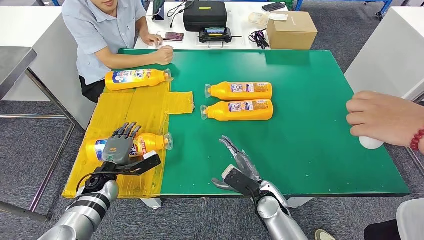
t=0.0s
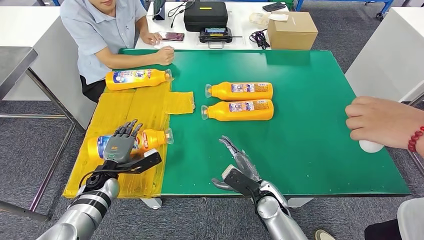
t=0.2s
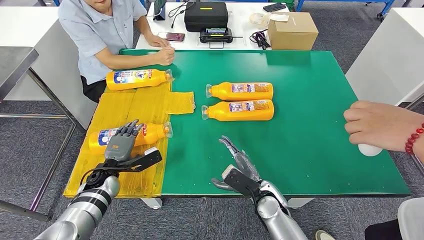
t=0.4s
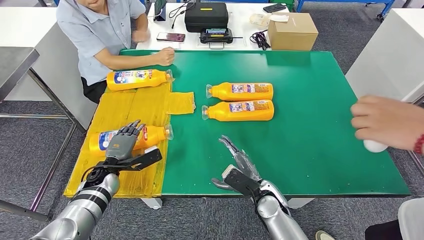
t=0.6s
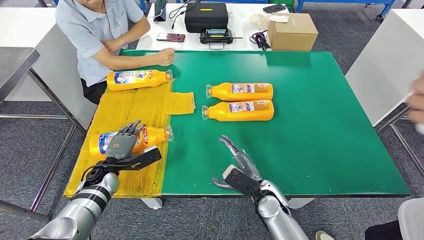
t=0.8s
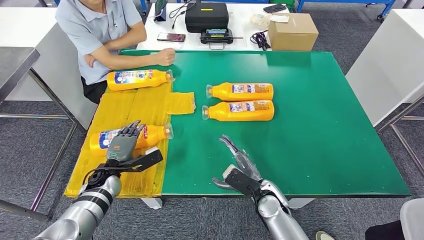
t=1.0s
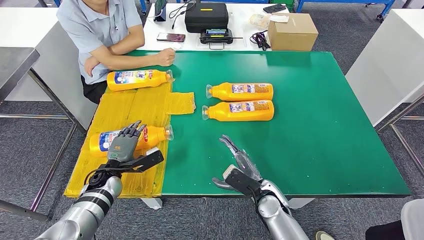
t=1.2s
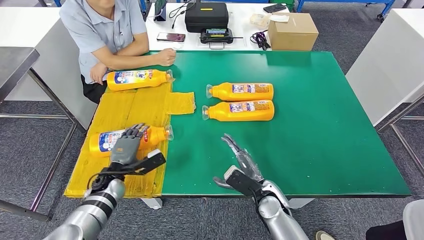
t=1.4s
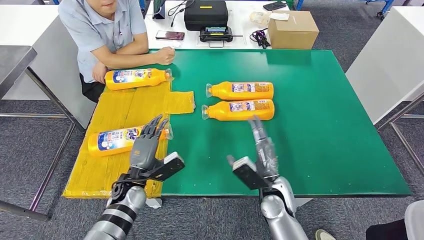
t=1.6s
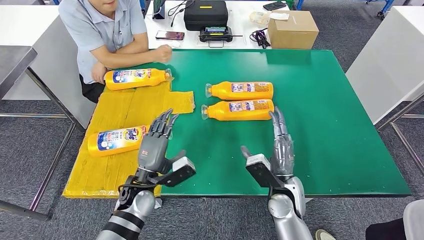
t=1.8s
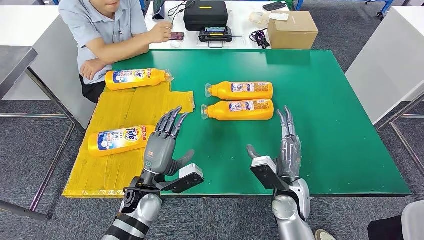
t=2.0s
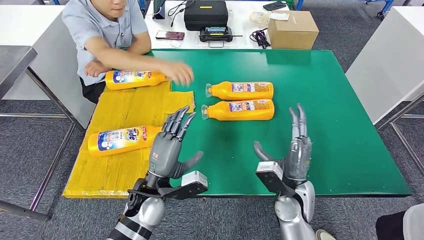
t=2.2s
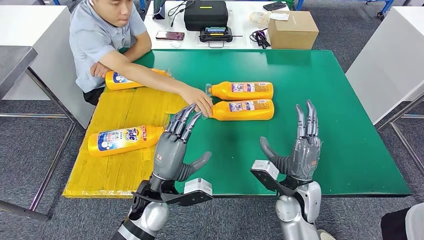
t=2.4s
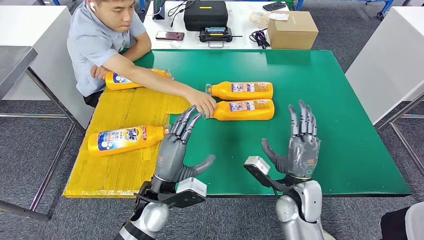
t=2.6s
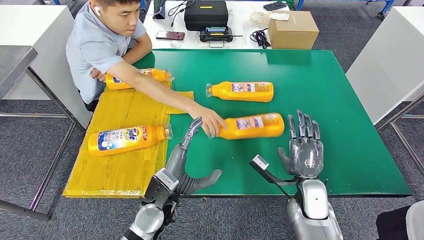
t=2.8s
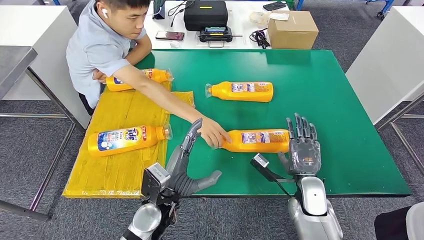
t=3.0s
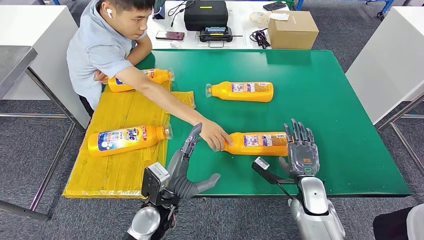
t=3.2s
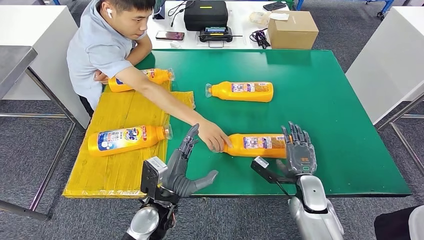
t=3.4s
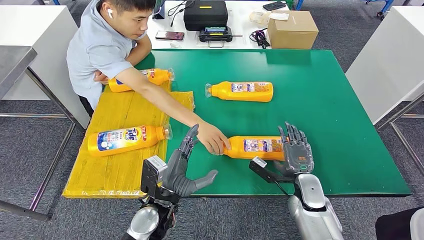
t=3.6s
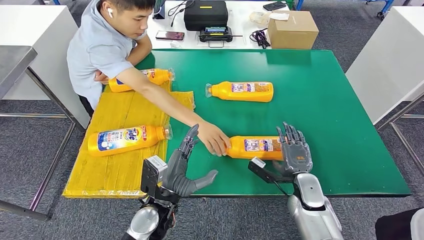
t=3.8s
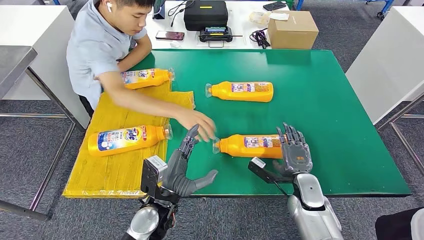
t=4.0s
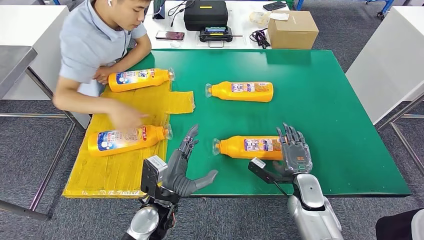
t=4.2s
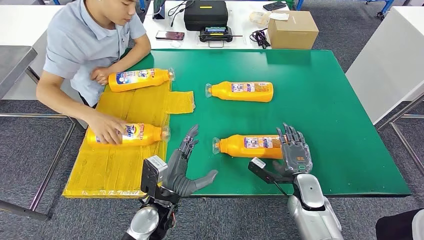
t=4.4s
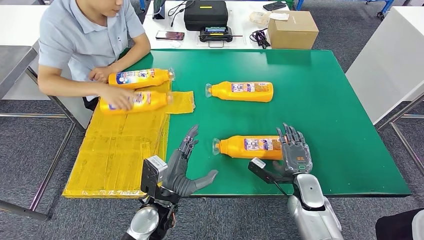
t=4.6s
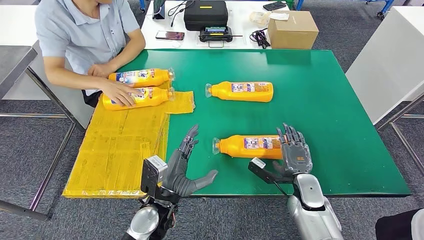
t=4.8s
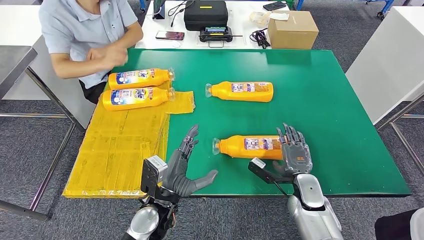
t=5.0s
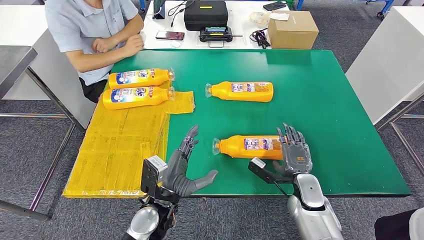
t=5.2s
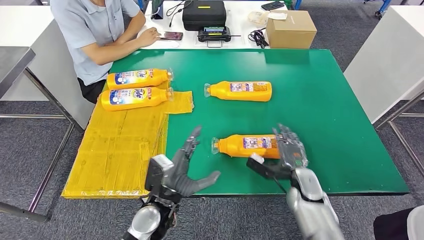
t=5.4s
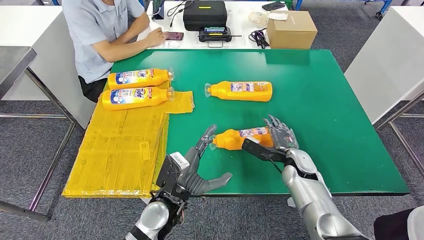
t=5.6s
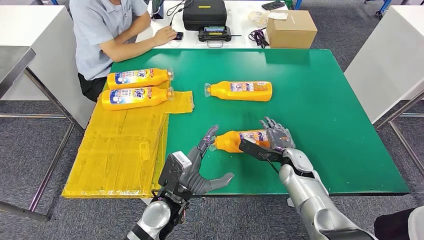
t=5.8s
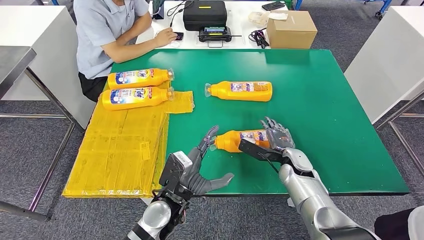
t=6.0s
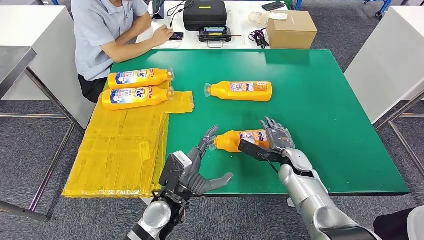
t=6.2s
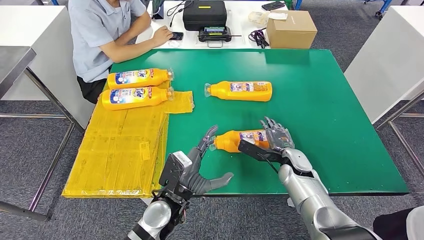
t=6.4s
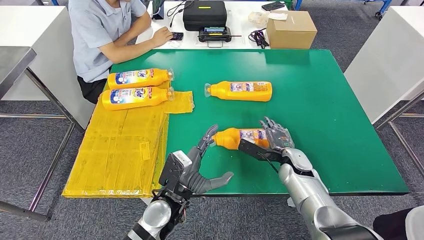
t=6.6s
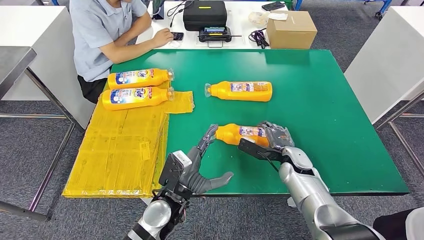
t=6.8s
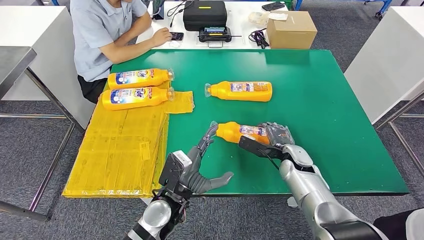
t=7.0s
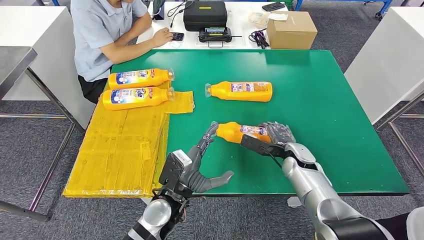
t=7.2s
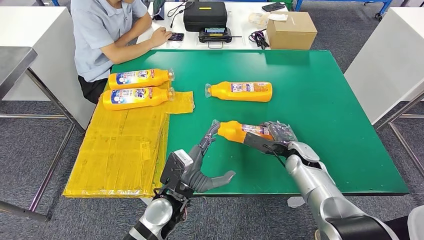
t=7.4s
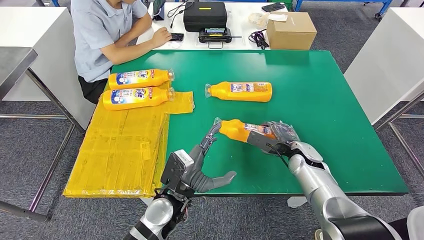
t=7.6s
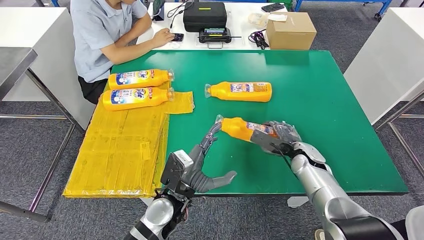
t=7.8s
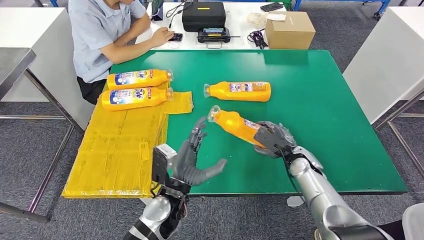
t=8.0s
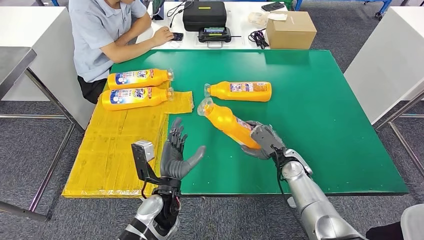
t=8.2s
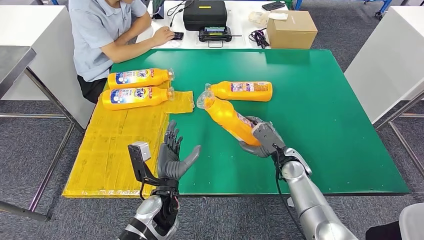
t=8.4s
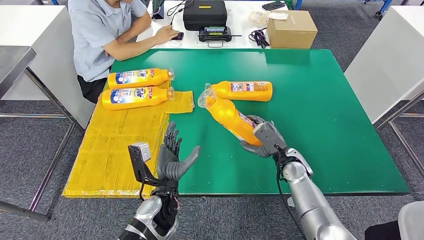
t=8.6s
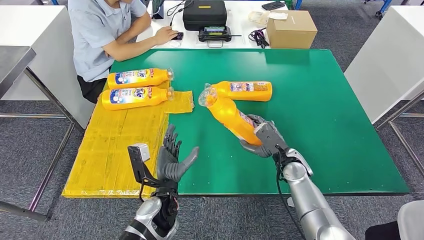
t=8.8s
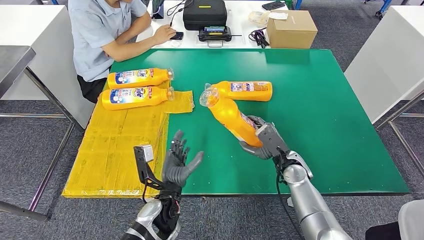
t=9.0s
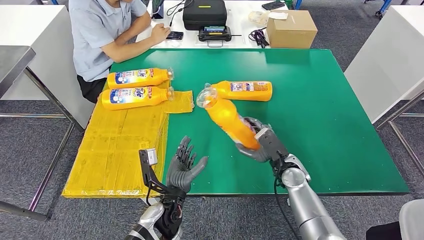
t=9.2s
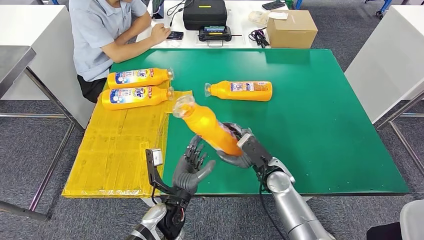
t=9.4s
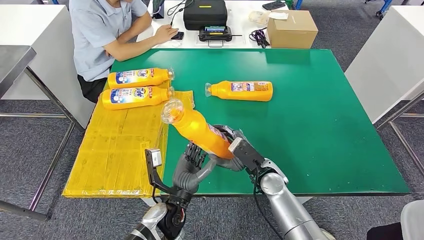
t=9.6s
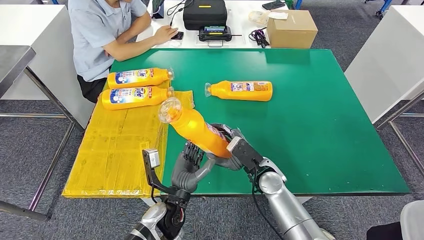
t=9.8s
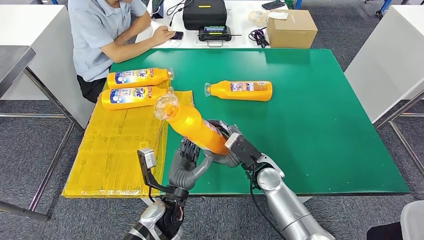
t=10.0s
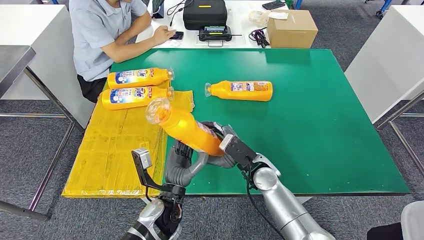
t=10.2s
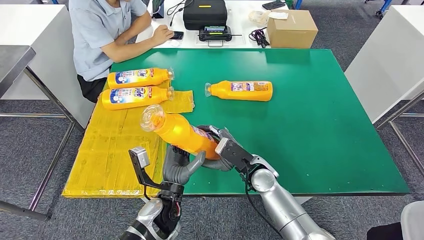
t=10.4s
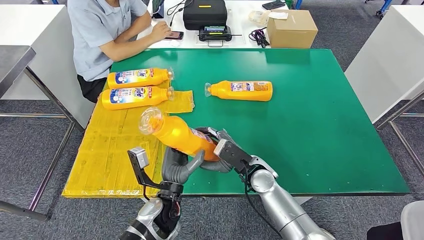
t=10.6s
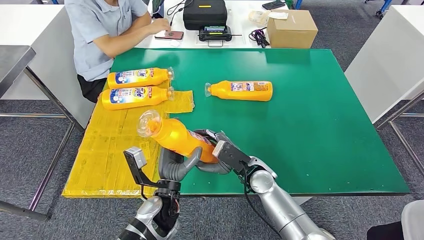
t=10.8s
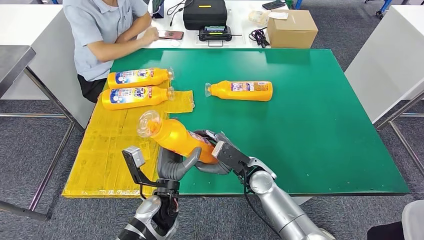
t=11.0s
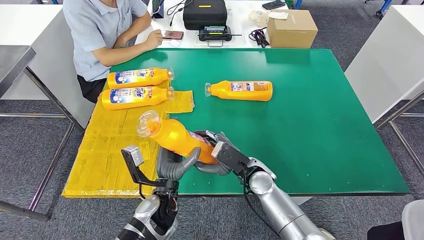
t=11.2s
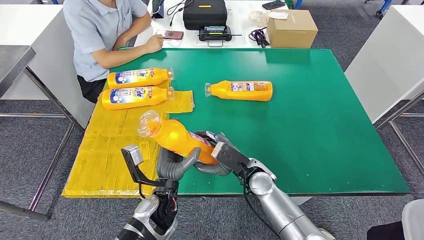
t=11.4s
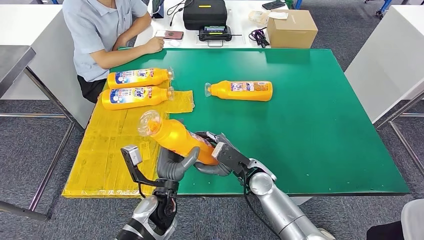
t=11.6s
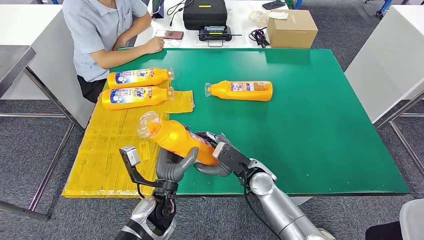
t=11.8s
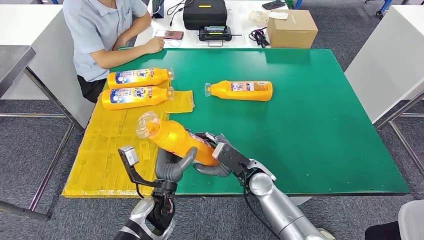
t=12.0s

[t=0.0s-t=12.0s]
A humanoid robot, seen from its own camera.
Step, t=1.0s to t=10.2s: Pick up the fast-moving consumer goods bottle from the table.
t=3.0s to t=4.4s: There are only small adjustments of the hands.
t=6.0s to t=7.6s: The hands make only small movements.
t=7.6s to t=9.0s: The right hand goes approximately 5 cm to the left.
t=9.0s to t=10.4s: The right hand moves to the left, some 10 cm.
t=10.4s to t=12.0s: The hands stay close to where they were, moving slightly.

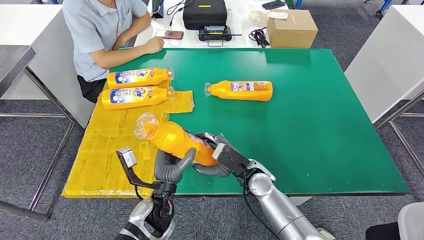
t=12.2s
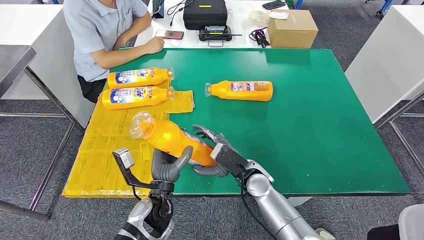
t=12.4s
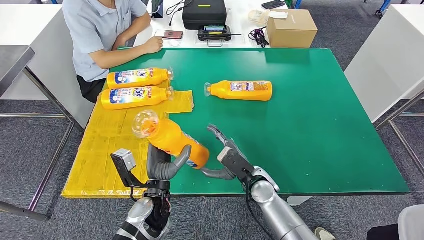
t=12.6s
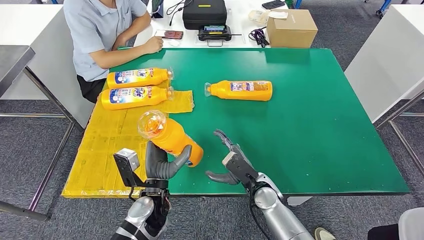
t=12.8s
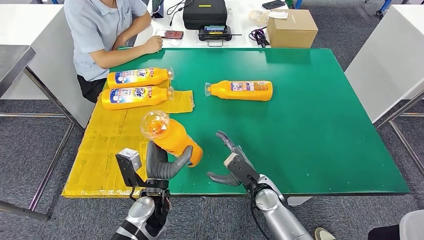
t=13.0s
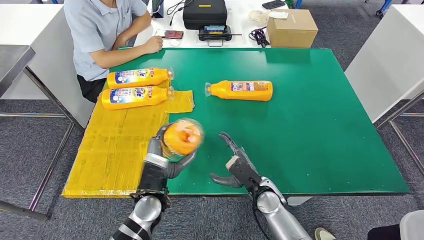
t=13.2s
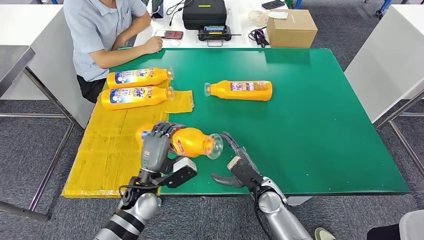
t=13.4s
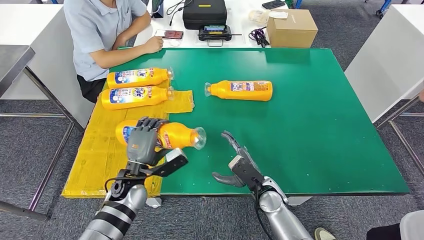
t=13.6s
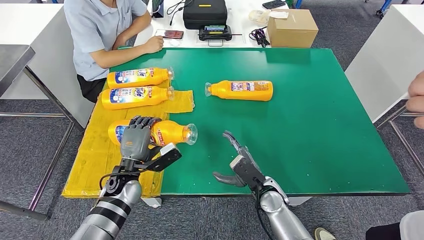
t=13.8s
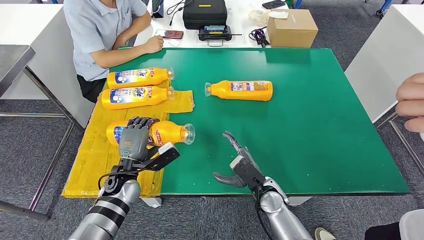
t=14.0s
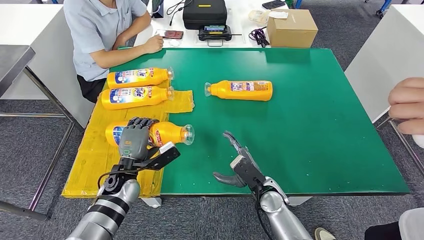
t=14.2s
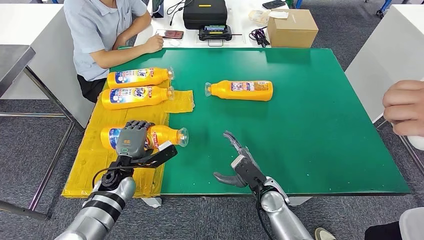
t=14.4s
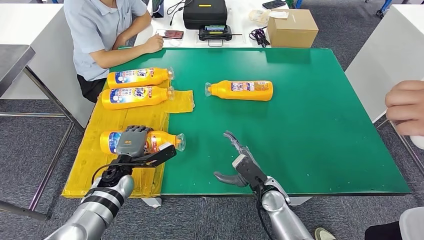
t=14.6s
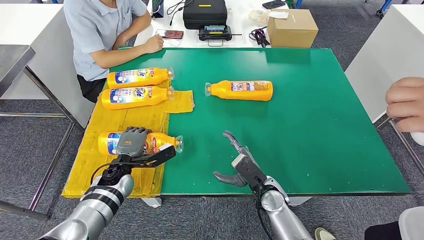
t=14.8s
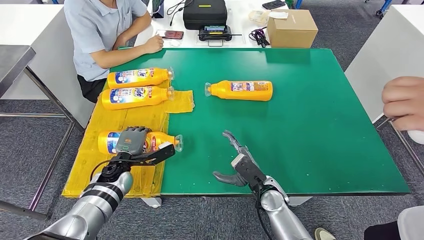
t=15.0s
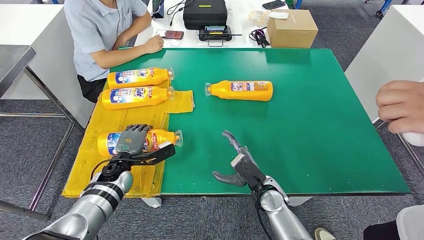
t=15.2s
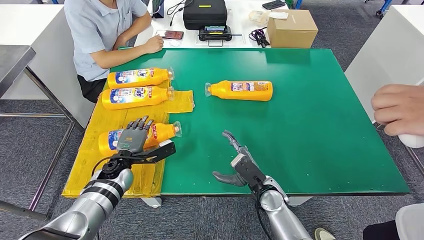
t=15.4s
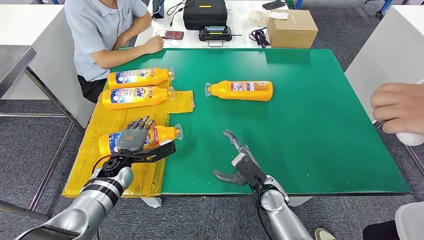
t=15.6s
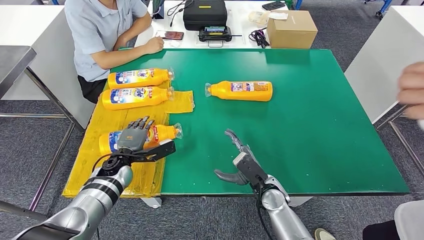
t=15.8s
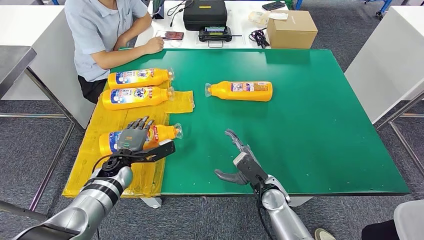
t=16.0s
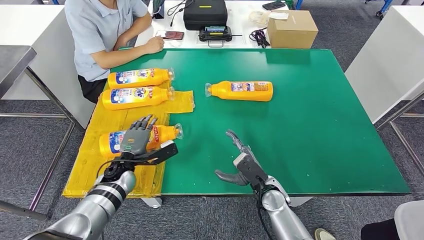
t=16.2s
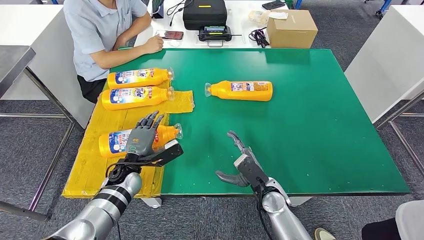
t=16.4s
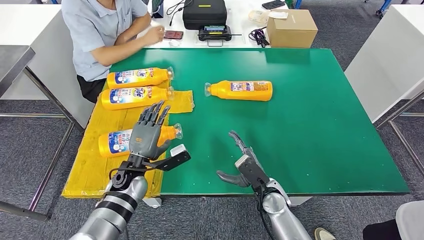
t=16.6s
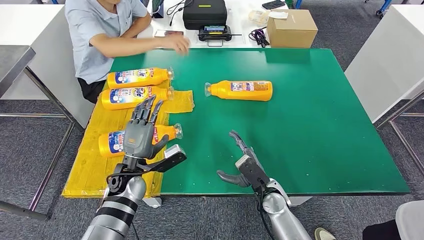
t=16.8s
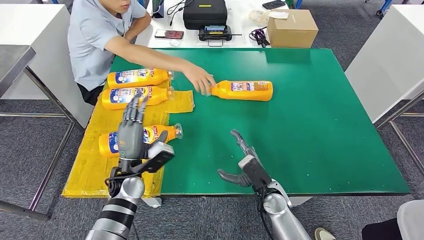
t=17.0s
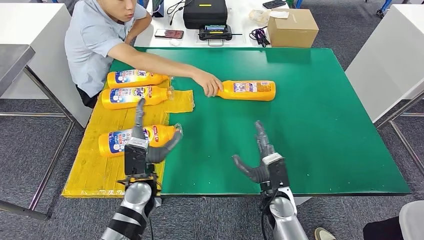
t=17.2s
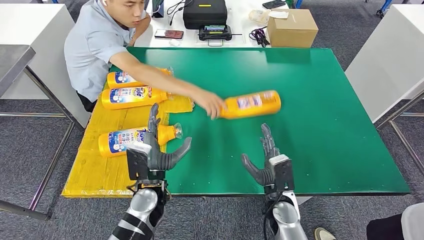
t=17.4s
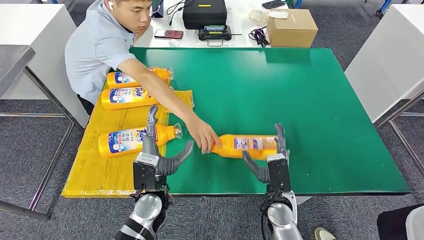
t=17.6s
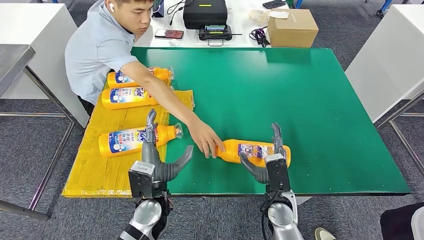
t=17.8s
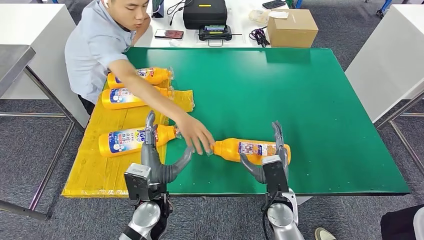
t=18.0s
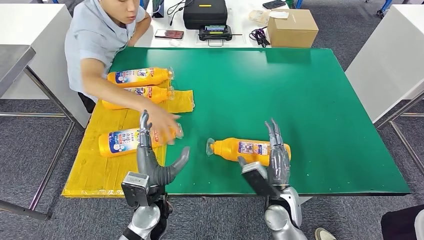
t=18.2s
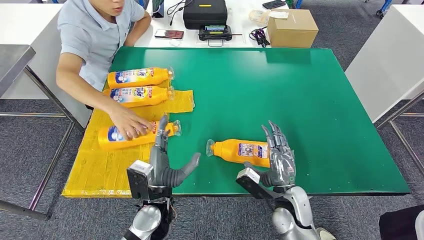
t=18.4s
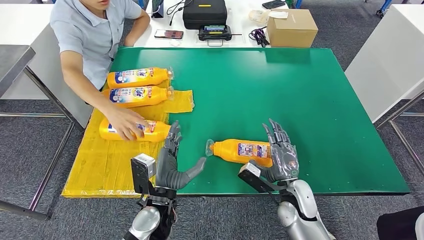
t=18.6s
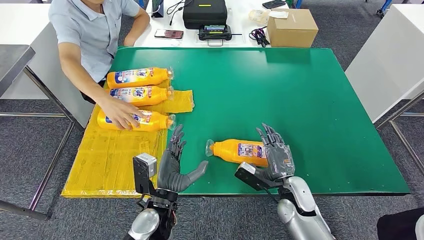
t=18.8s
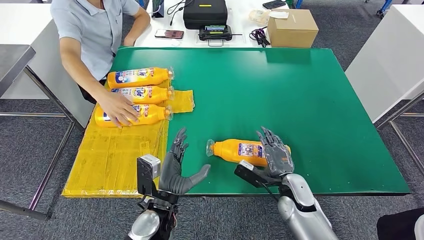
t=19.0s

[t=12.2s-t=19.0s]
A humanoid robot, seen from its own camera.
Step, t=12.2s to t=14.4s: Flip the fast-moving consumer goods bottle to the front side.
t=12.2s to t=13.6s: The right hand changes place by some 5 cm. The left hand travels to the left and forward by roughly 10 cm.
t=13.6s to t=15.0s: The left hand shifts by approximately 5 cm.
t=15.0s to t=16.2s: The hands move only a little.
